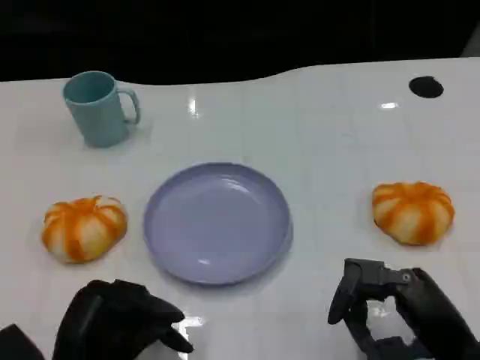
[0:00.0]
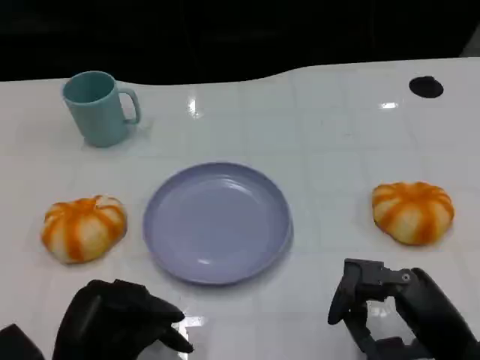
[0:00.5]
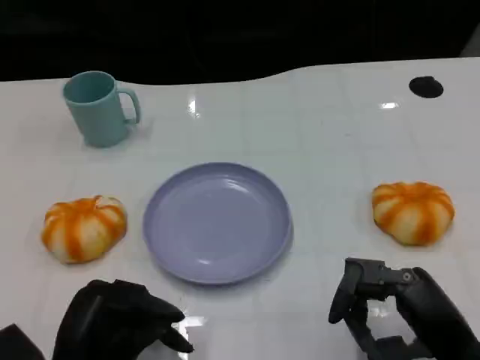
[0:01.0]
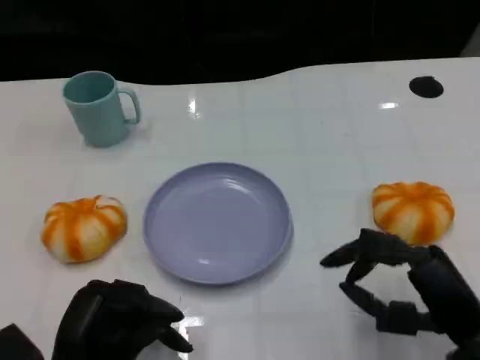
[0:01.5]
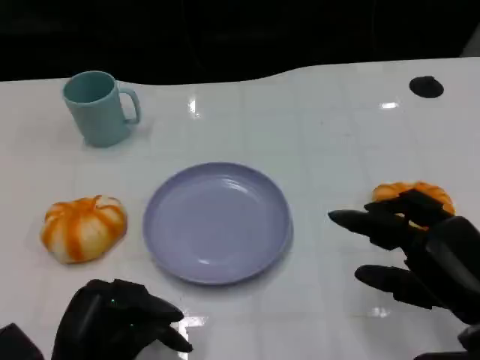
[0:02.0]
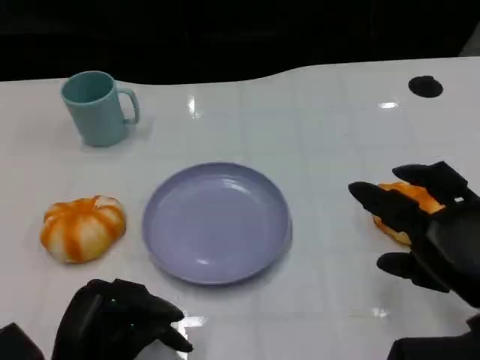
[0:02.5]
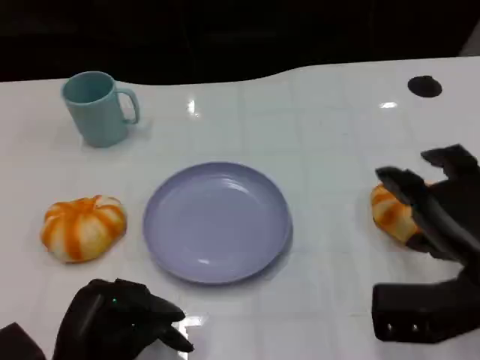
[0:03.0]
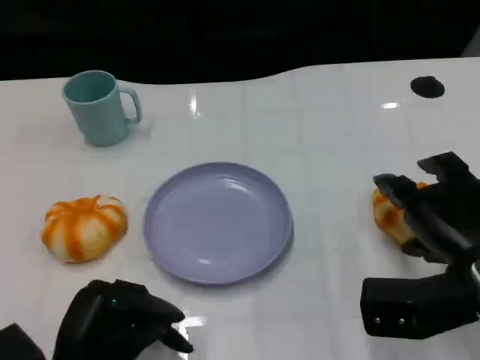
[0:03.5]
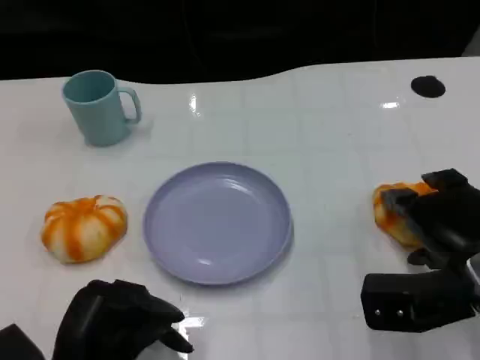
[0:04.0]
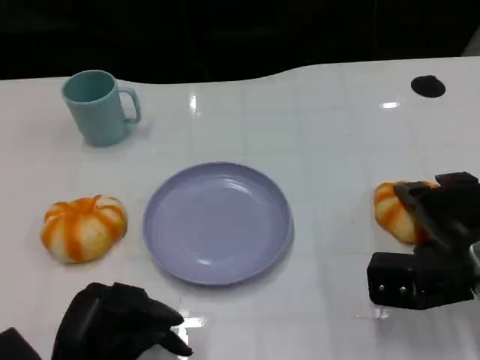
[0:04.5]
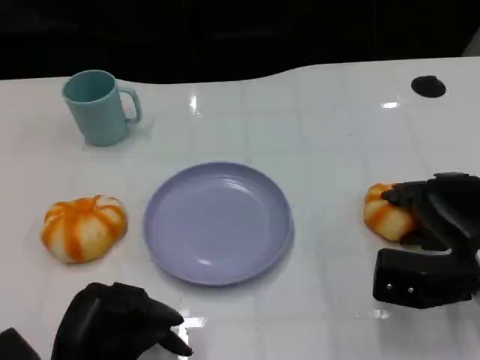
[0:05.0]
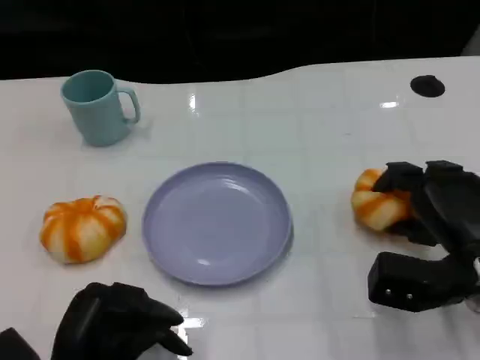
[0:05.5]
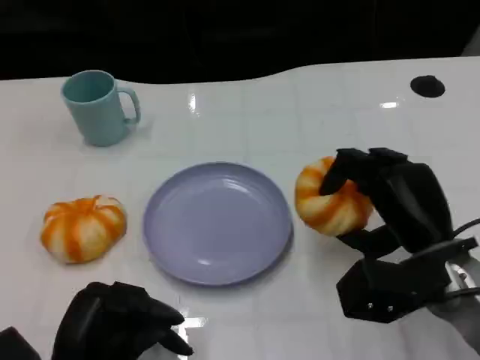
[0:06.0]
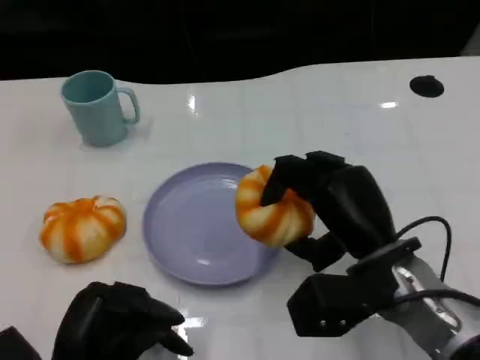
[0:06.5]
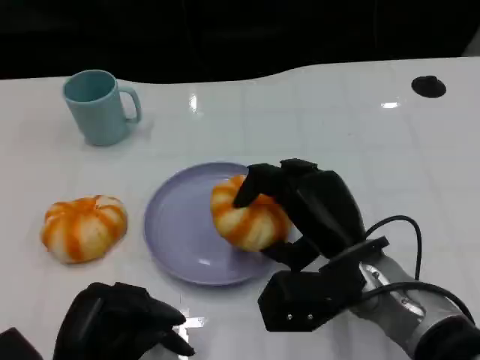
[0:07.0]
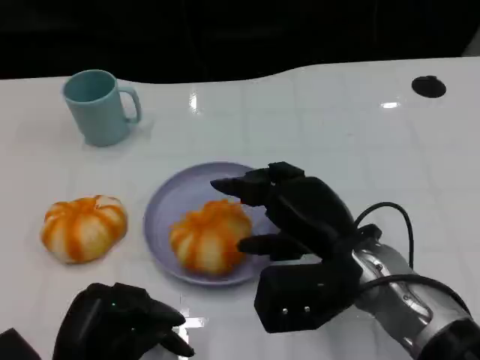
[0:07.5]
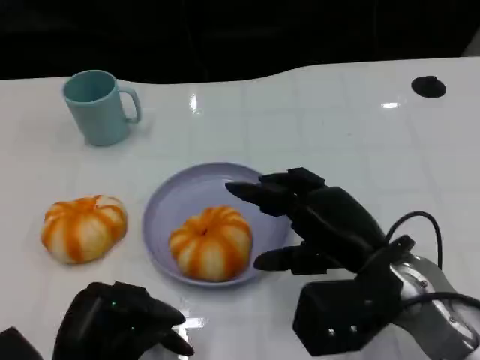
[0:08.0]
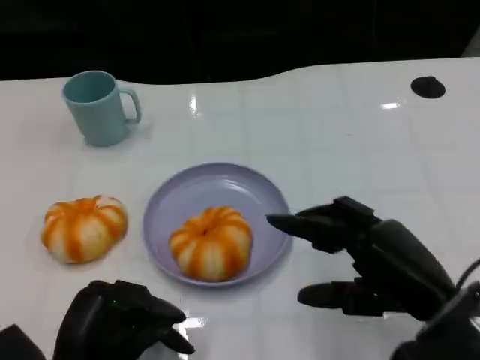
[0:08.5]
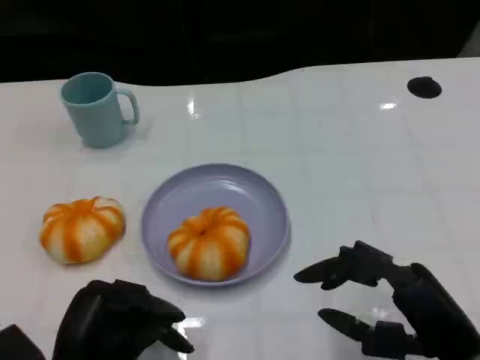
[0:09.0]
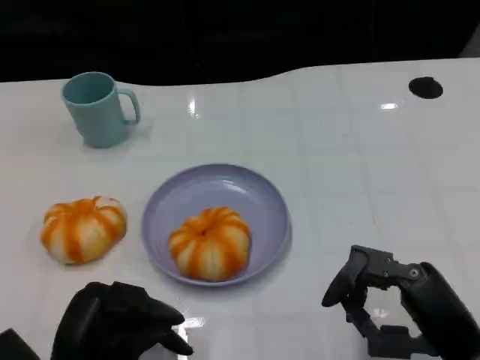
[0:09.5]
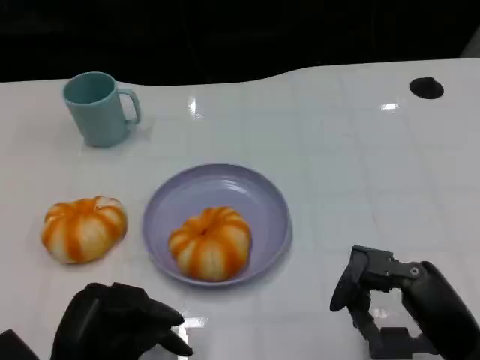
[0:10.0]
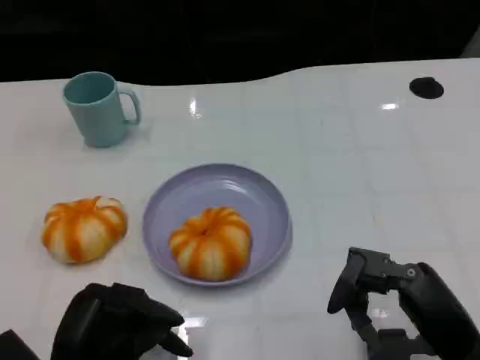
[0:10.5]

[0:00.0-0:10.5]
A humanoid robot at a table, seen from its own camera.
Task of the whole recording: Grasp the bread from the table and place it into the plate.
0:02.0 to 0:04.0: The right hand moves forward, roughly 5 cm.
0:04.0 to 0:06.5: The right hand heads to the left, covering about 10 cm.
0:06.5 to 0:08.5: The right hand heads to the right and backward, covering about 10 cm.

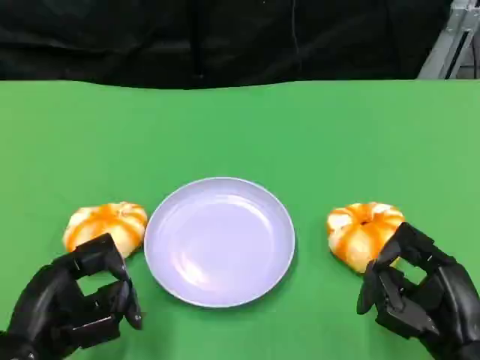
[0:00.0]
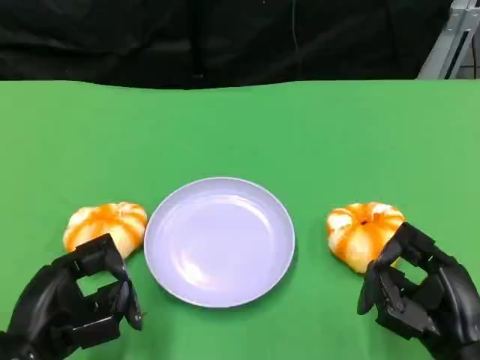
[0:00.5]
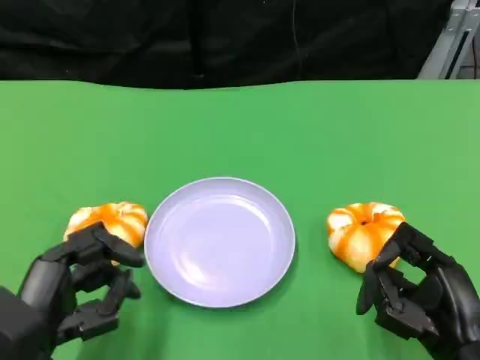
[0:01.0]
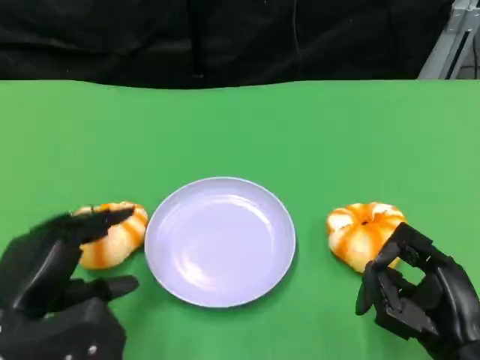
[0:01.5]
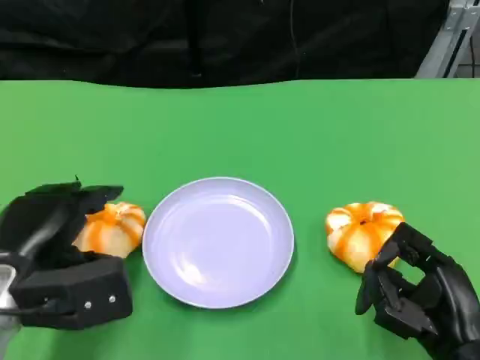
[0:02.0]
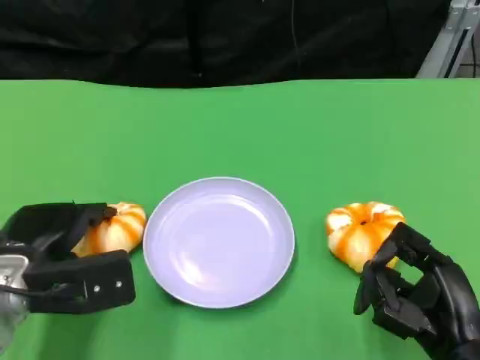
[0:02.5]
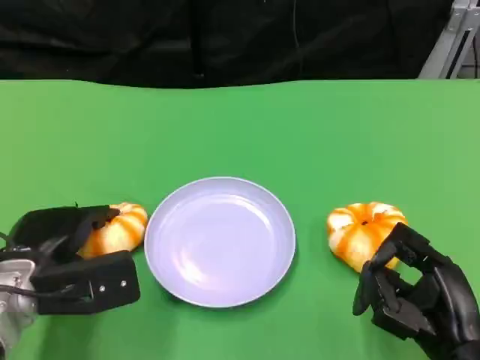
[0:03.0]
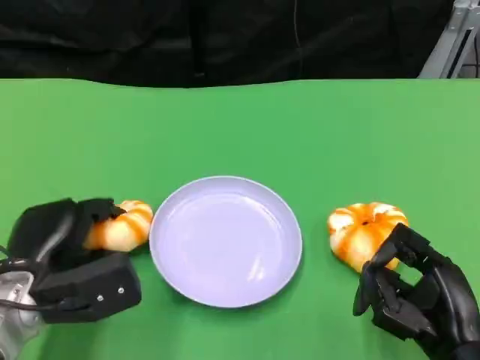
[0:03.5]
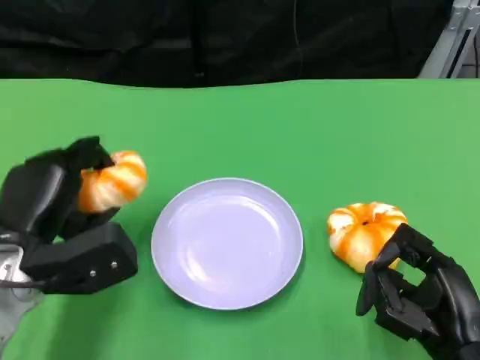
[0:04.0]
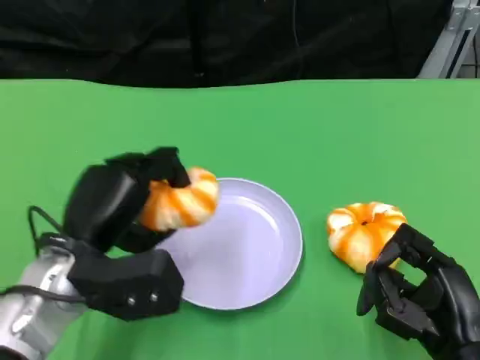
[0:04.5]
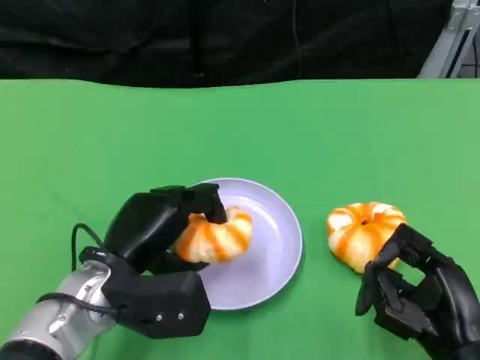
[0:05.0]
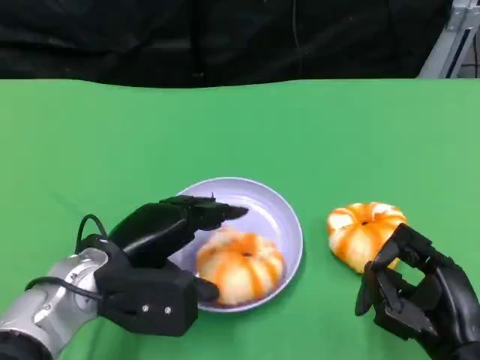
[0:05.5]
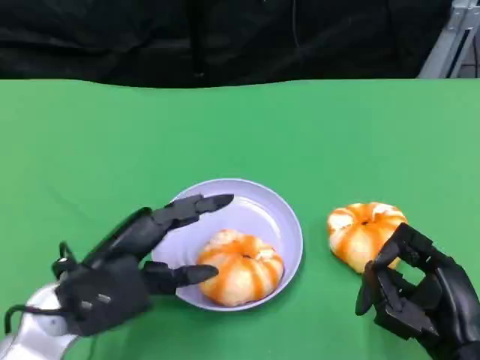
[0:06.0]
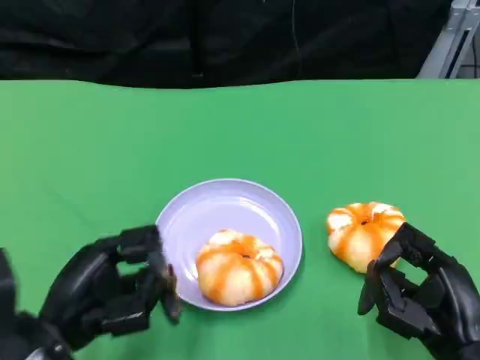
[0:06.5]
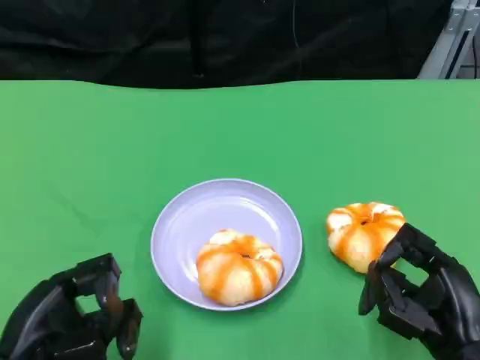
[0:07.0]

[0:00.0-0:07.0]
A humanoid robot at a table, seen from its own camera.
Task of the whole recording: Grasp the bread from the table and place it into the plate.
0:00.0 to 0:02.0: The left hand moves forward, about 5 cm.
0:02.0 to 0:03.5: There are only small adjustments of the hands.
0:03.5 to 0:05.0: The left hand goes roughly 5 cm to the right.
0:05.0 to 0:07.0: The left hand shifts roughly 15 cm to the left and backward.

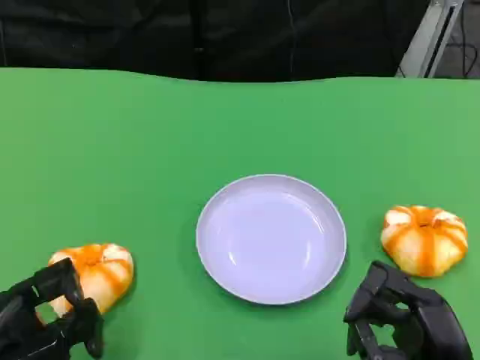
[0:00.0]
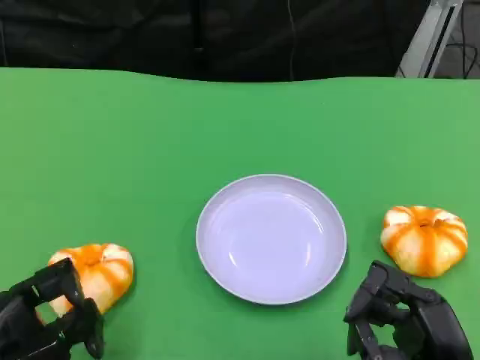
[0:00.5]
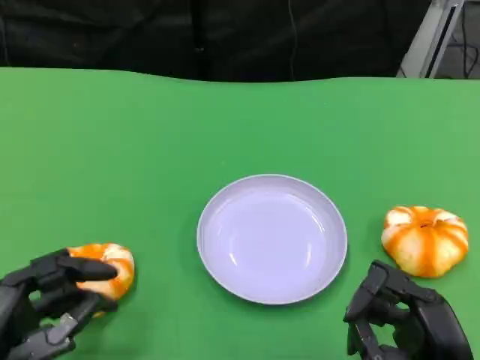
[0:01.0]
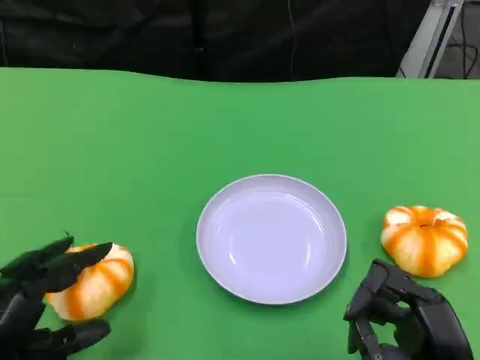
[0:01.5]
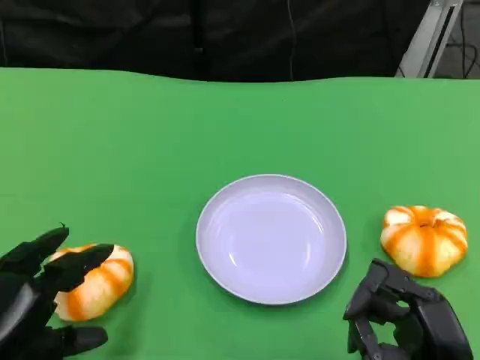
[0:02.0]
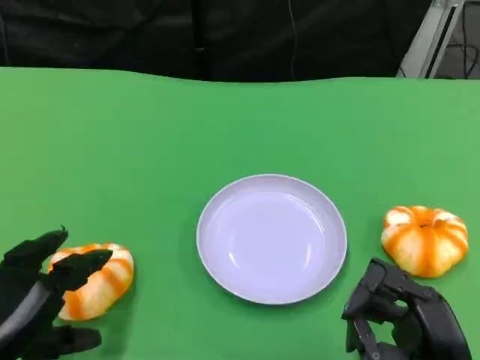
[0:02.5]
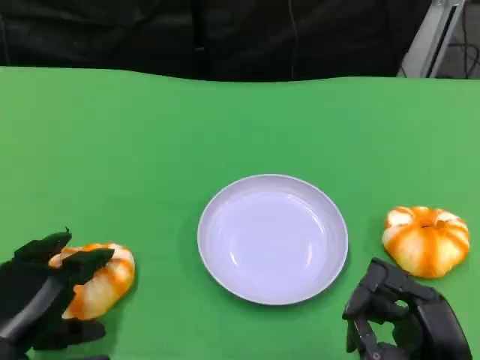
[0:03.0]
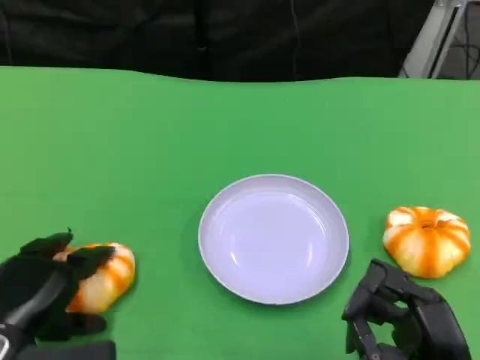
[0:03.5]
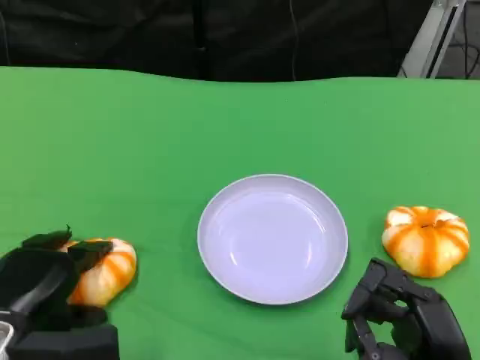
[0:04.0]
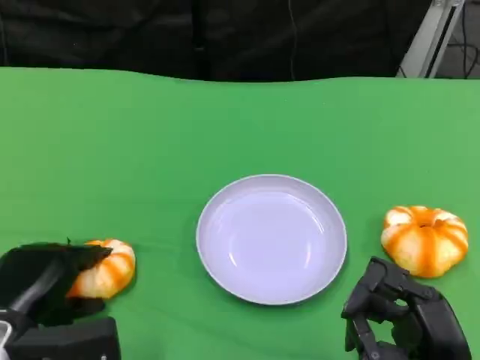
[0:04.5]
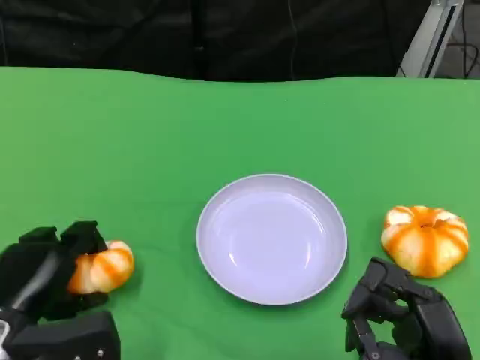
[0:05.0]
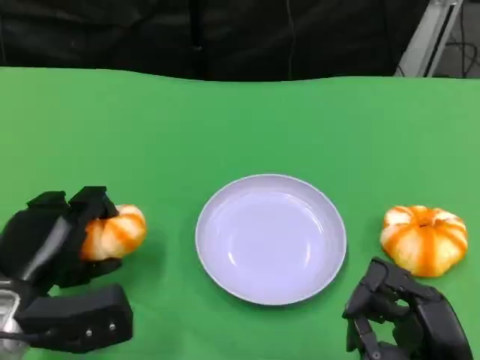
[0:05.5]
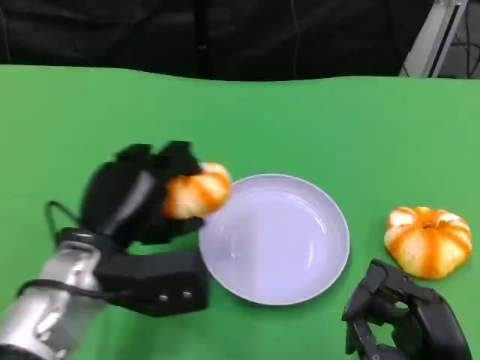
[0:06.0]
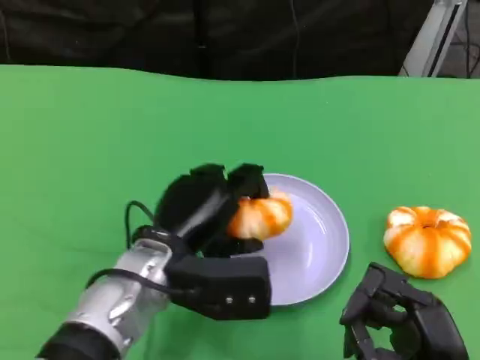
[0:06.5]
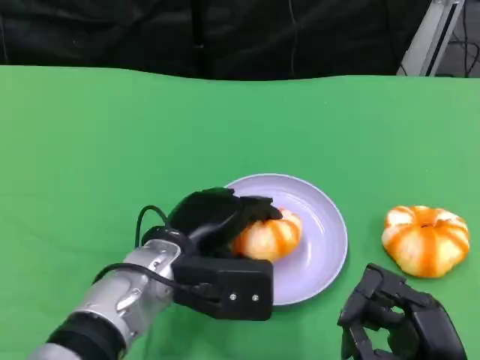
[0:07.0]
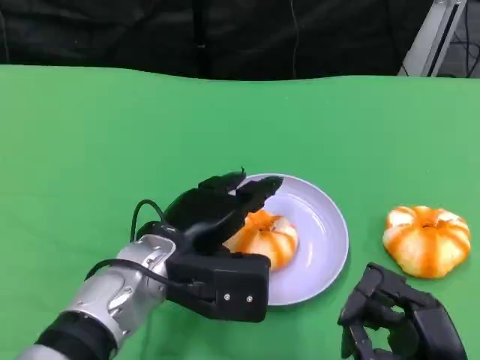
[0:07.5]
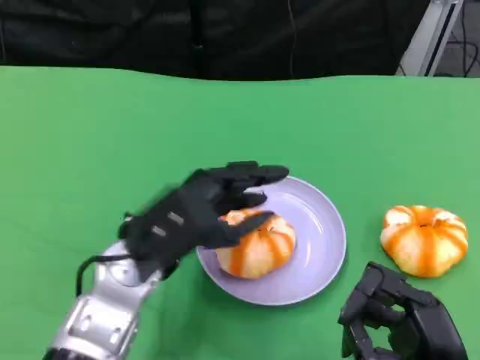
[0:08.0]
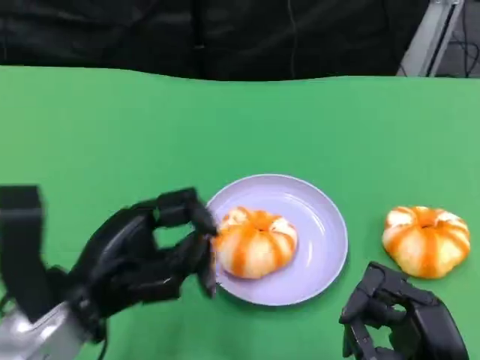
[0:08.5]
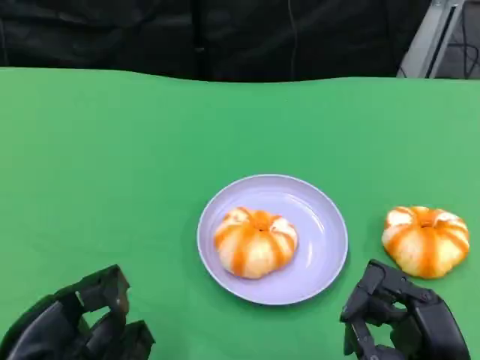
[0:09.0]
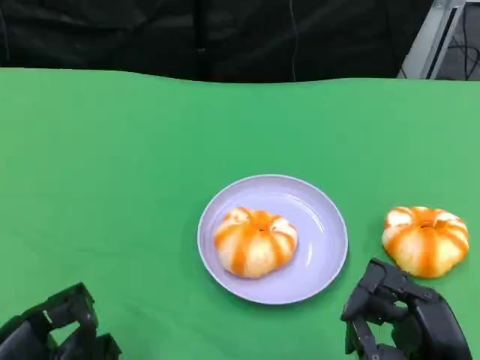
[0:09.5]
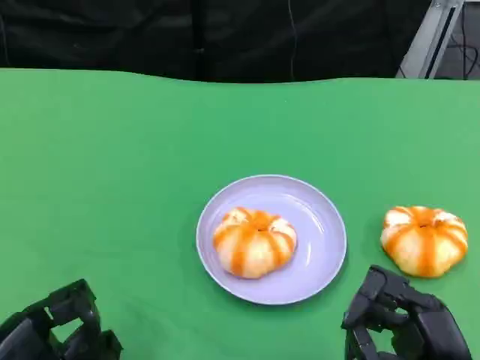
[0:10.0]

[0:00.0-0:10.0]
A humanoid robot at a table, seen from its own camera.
Task of the whole recording: Grasp the bread from the table and place it into the plate.
0:02.0 to 0:04.0: The left hand shifts approximately 5 cm forward.
0:04.0 to 0:06.0: The left hand travels to the right and upward by some 10 cm.
0:08.0 to 0:10.0: The left hand is displaced to the left, backward and downward by some 20 cm.
